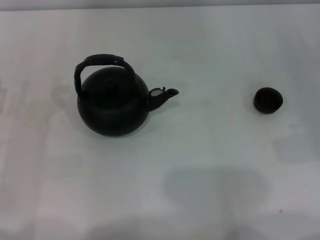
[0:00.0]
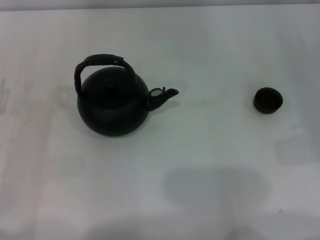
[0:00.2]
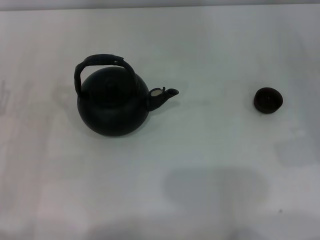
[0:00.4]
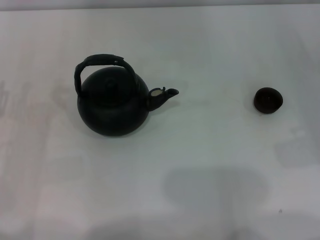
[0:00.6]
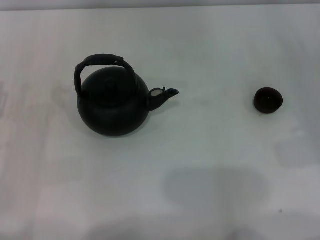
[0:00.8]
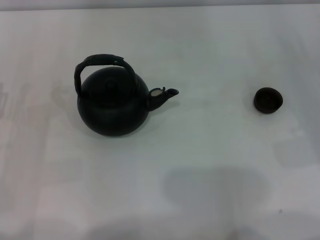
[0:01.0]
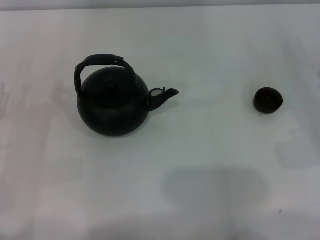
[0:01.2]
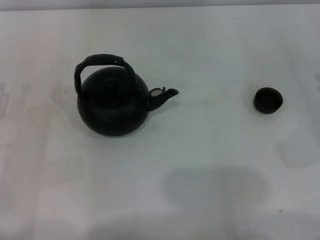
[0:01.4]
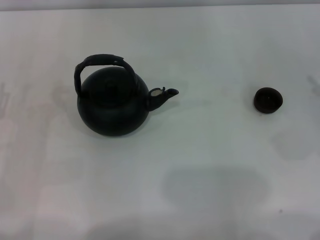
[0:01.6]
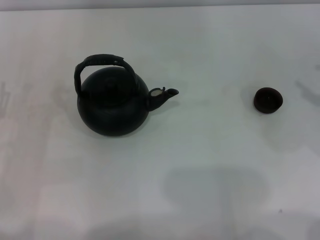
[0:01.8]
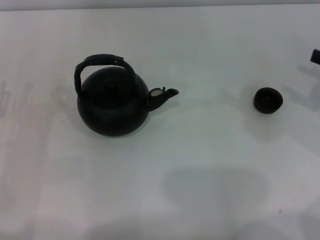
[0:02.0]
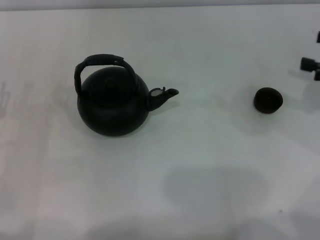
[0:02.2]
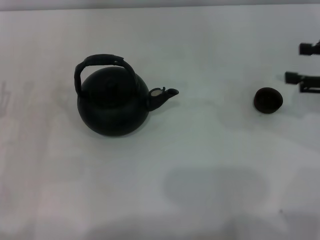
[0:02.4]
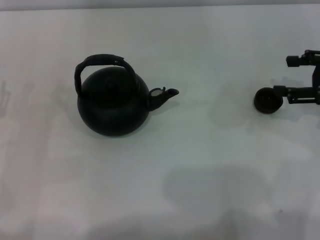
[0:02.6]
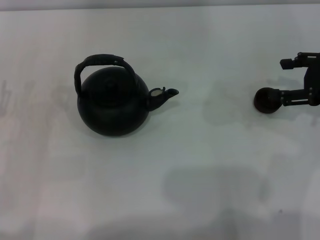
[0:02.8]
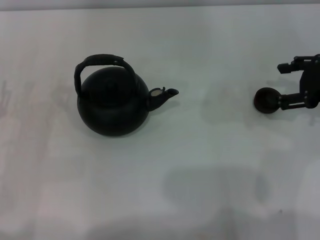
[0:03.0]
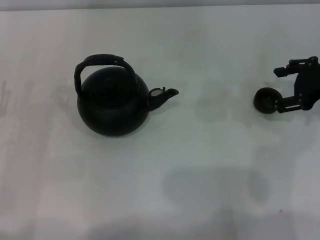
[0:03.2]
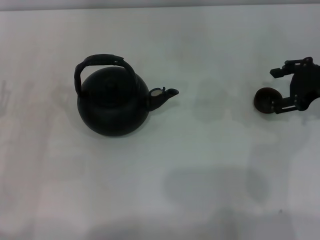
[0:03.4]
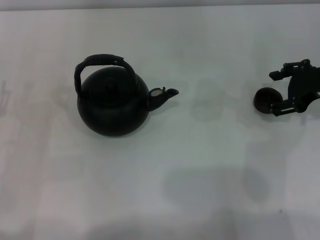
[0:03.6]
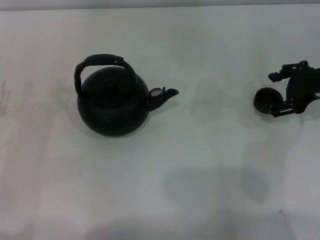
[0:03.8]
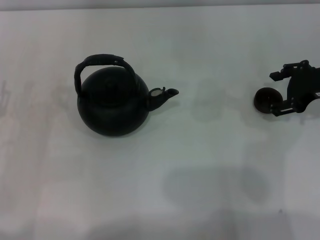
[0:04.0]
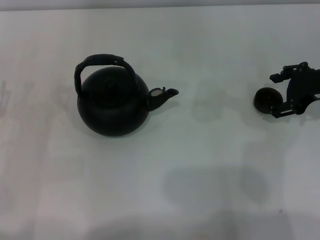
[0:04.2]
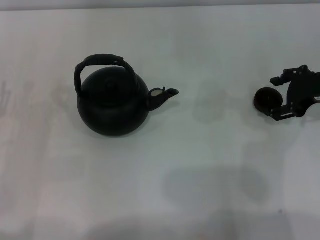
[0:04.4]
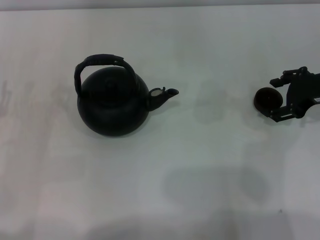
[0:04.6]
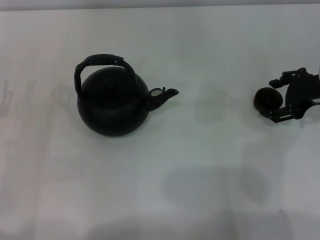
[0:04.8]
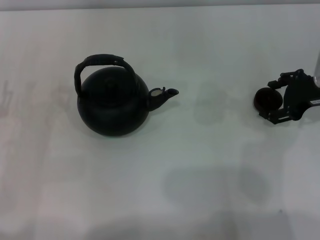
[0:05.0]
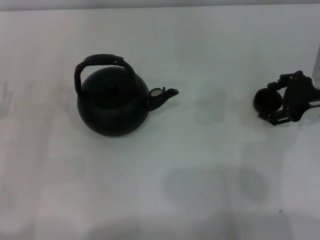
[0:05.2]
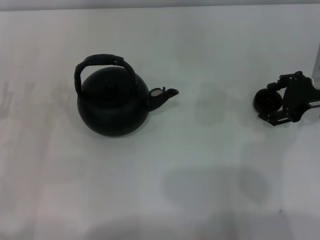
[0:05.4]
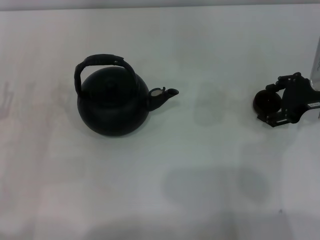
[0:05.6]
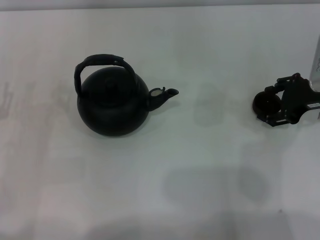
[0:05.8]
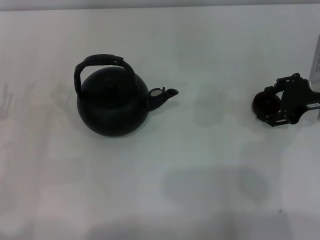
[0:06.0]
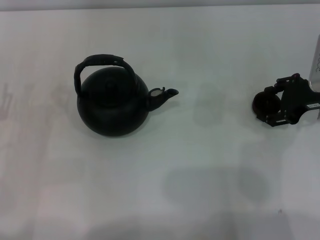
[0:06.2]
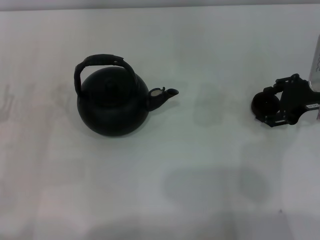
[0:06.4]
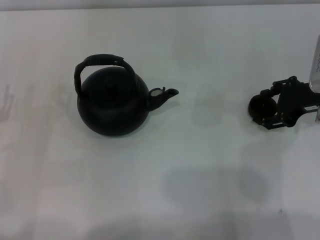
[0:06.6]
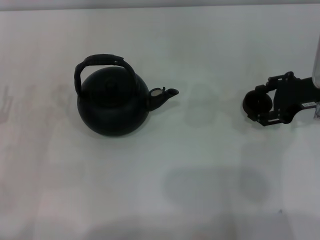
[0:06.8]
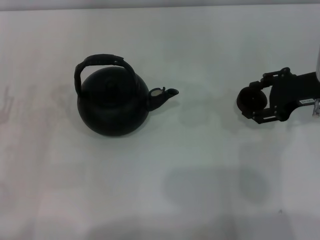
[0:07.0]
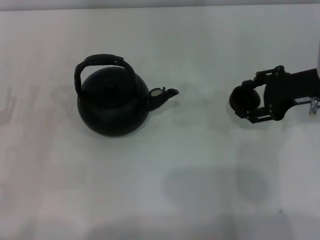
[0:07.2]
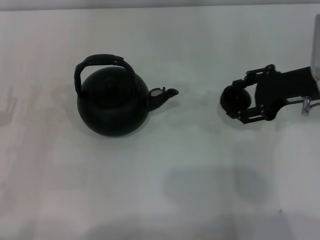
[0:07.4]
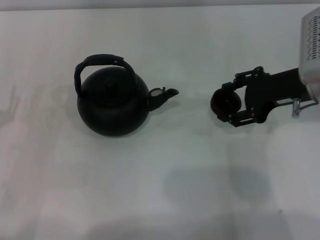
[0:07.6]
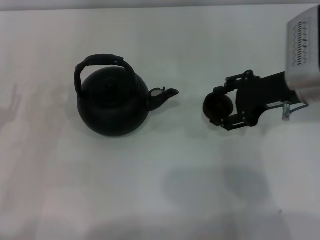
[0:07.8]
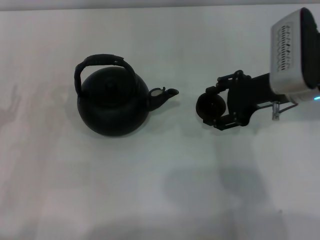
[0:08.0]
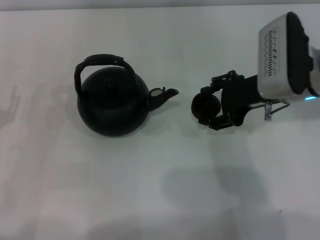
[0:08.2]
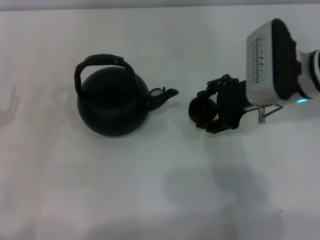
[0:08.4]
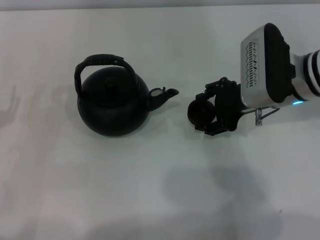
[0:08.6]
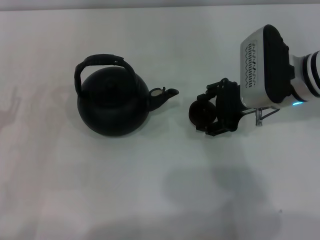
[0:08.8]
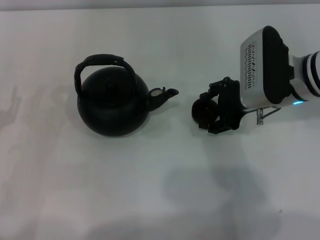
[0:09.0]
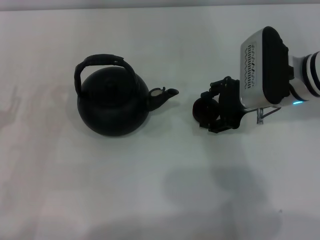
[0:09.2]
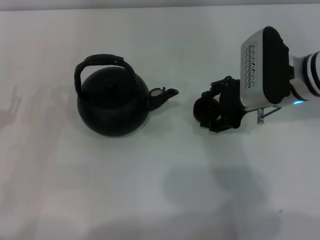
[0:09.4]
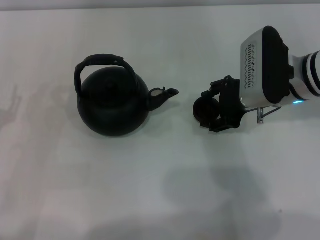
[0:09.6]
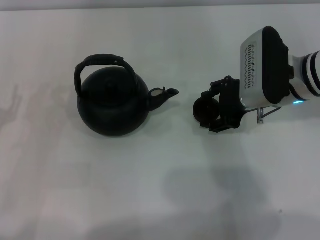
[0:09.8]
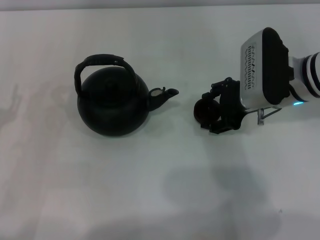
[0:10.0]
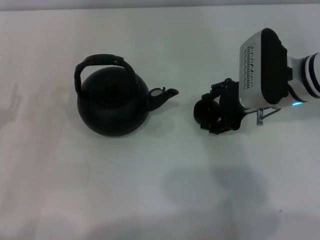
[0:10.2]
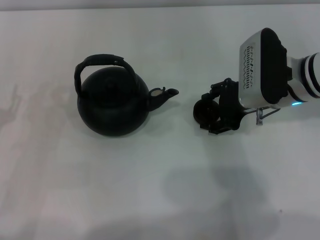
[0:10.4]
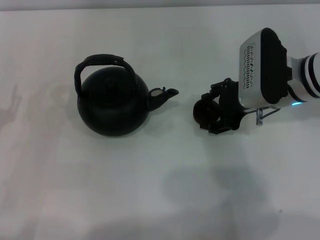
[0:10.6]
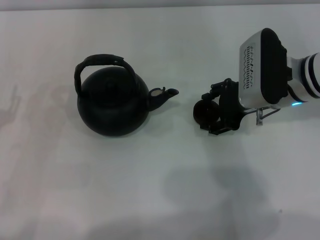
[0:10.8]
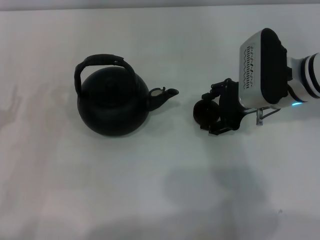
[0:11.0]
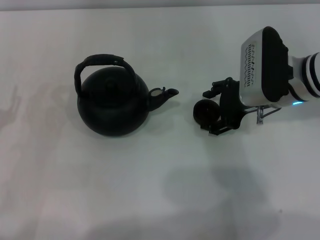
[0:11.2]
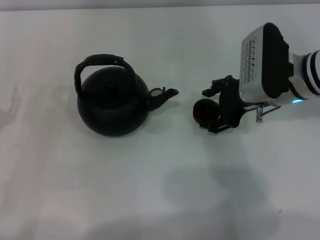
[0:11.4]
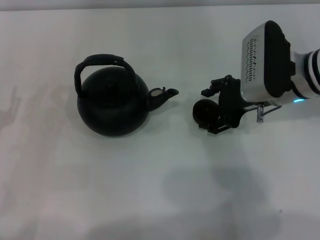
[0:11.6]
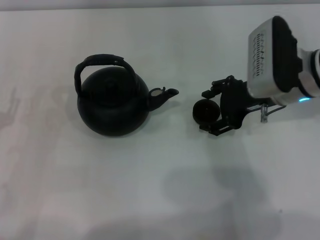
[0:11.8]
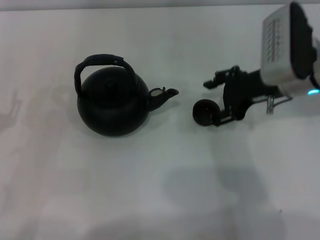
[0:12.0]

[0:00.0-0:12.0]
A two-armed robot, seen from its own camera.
Task of the whole recording: Grasp the handle of the teapot with one hand and pour tea into the teacup.
Step, 0:00.0 to 0:07.0: Pick up the teacup with the right gripper.
0:01.6 to 0:03.0: The right gripper shifts approximately 10 cm to the left and forward.
0:03.0 to 0:06.0: The grippers move only a little.
0:06.0 to 0:07.6: The right gripper ends up approximately 5 cm from where it was.
0:07.6 to 0:09.0: The right gripper goes roughly 5 cm to the left.
0:09.0 to 0:10.4: Both grippers stay about where they are.
0:10.4 to 0:12.0: The grippers stay close to where they were, moving slightly.

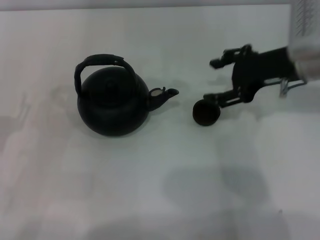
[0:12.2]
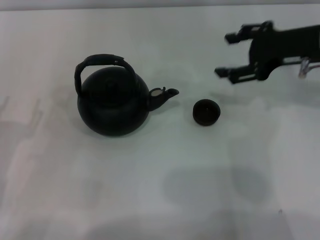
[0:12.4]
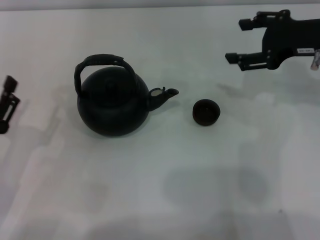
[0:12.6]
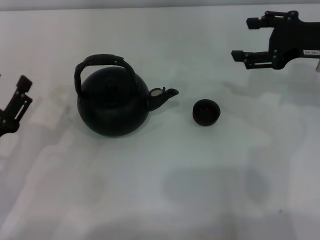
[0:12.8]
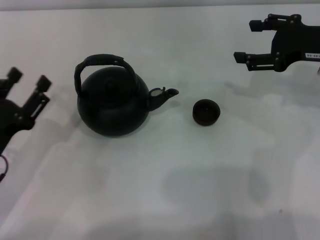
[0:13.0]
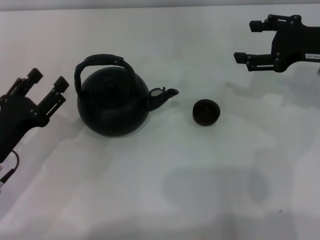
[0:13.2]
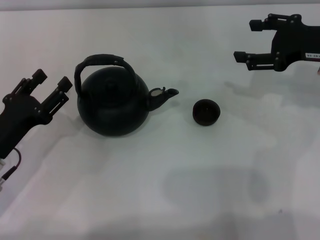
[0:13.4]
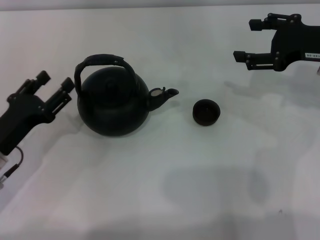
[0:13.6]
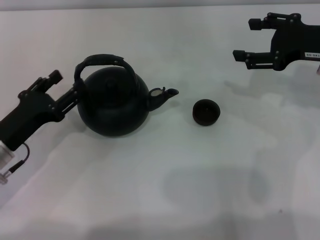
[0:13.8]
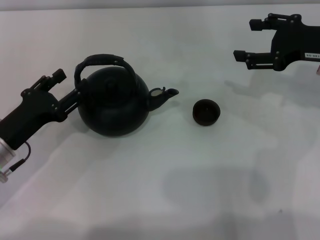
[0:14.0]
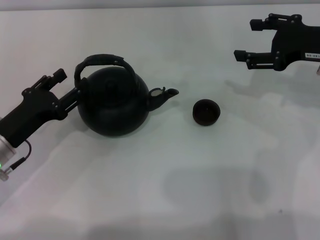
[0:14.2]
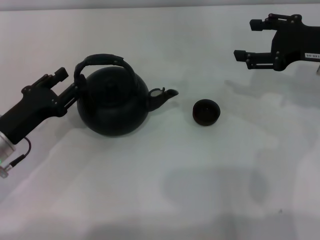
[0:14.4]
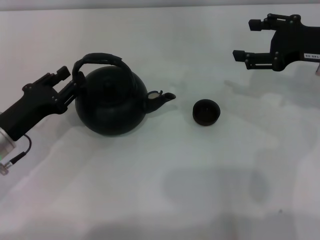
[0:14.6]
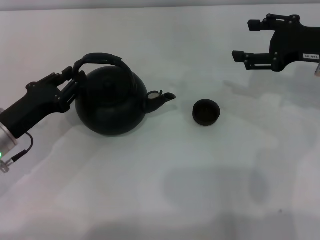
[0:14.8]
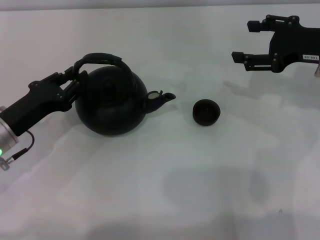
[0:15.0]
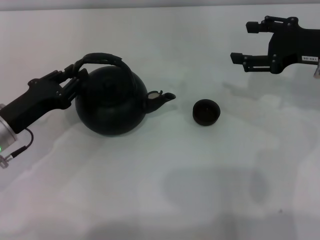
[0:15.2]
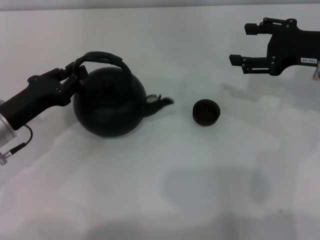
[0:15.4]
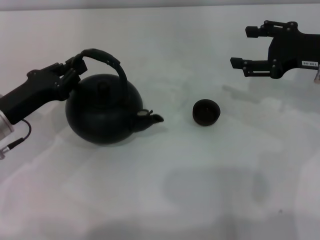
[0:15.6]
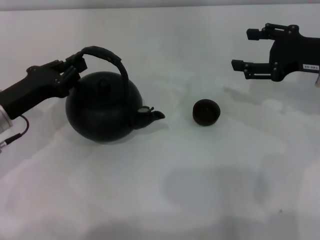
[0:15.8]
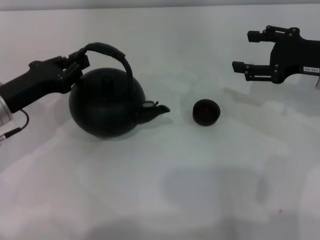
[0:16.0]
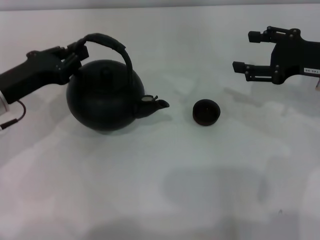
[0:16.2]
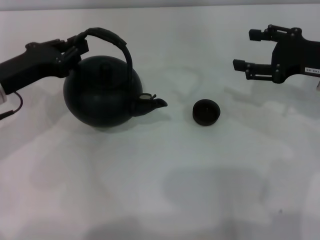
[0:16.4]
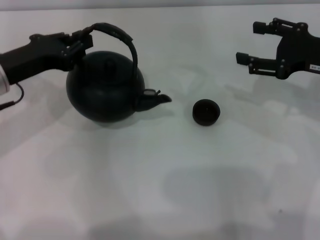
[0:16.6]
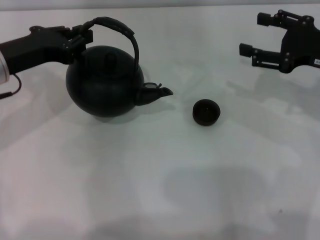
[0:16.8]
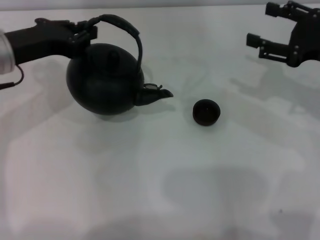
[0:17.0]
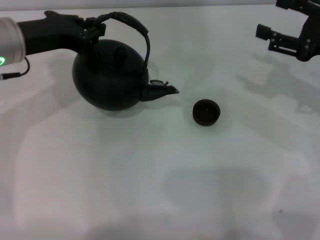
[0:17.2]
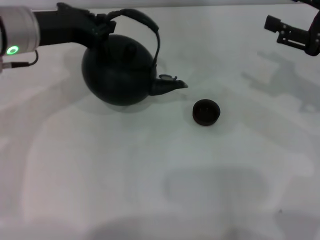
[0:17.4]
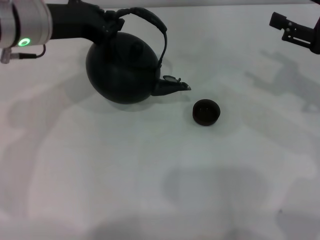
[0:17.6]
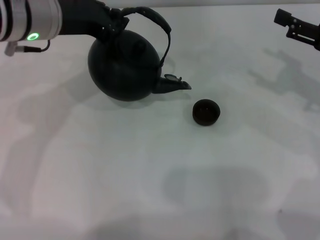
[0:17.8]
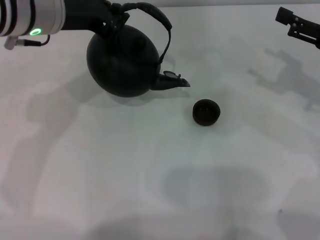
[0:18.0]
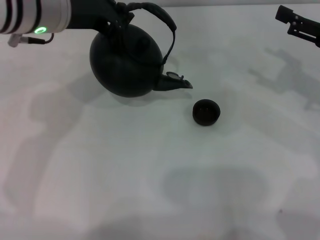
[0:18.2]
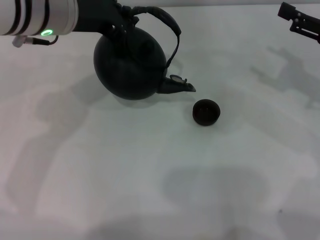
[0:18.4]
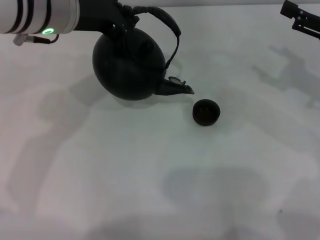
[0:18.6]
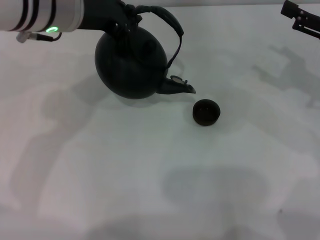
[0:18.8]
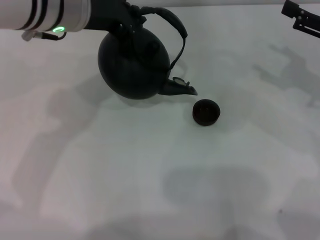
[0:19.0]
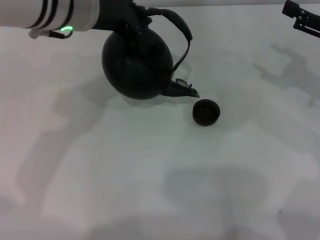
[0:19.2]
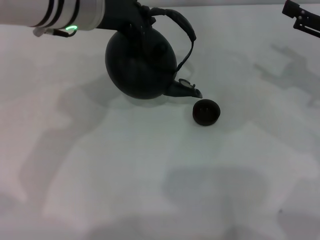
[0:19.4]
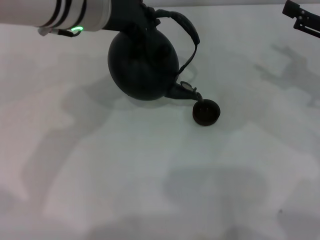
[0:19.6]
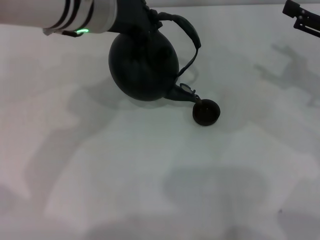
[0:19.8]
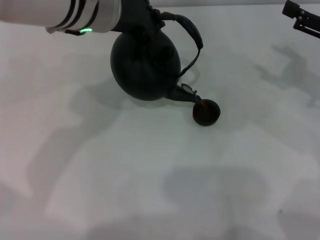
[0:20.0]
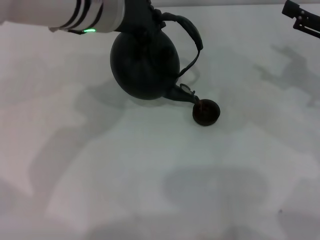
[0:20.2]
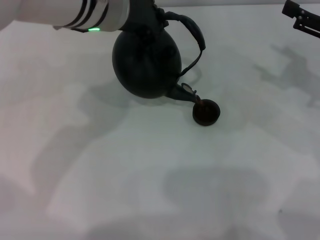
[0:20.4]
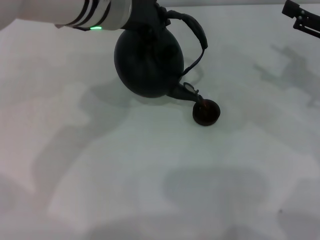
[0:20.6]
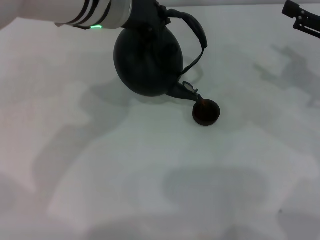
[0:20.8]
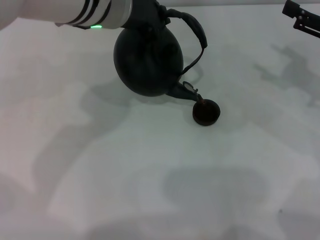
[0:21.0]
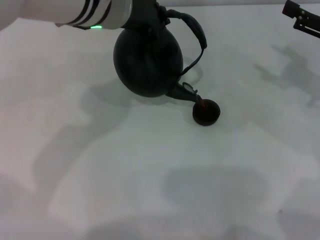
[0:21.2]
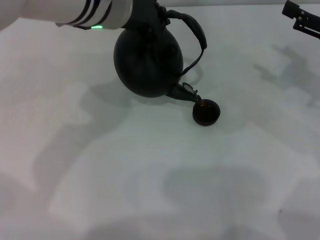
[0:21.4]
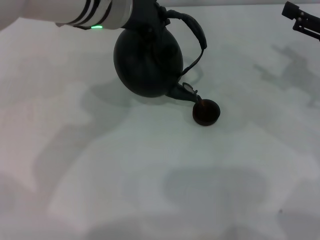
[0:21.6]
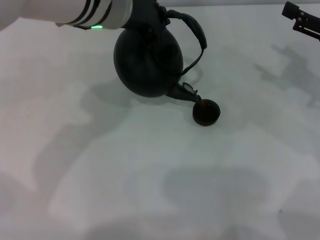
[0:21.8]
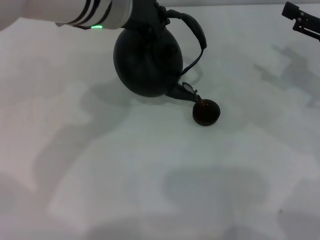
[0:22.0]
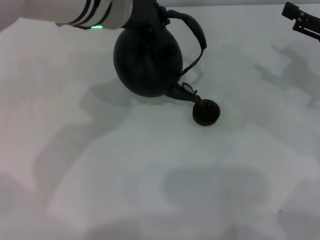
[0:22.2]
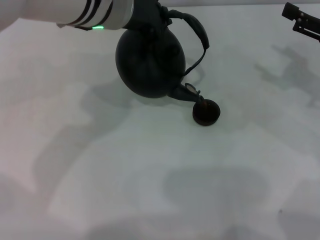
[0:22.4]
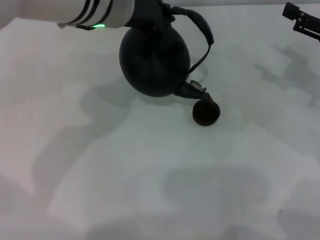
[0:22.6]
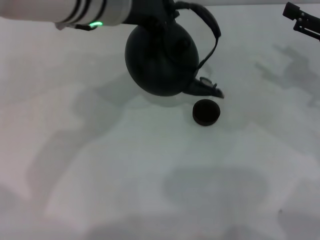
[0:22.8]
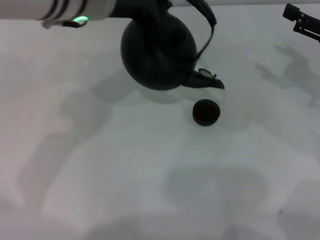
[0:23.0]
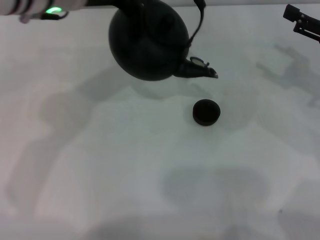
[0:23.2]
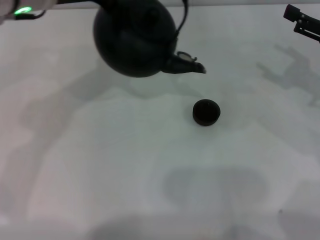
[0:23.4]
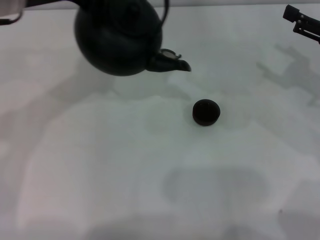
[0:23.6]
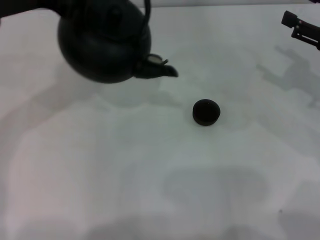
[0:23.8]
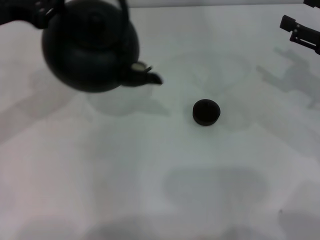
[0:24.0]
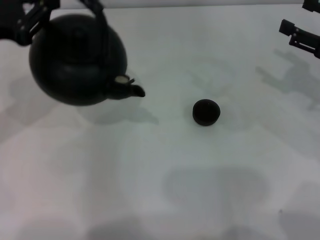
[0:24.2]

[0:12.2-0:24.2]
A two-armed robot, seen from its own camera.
Task of the whole recording: Grasp the handle of the teapot with one hand and pour tea into the teacup.
Step, 0:12.2 to 0:16.8: Pick up the teapot with the left gripper.
Step, 0:17.0 to 0:22.8: Pour tea into the teacup with the left gripper.
0:12.2 to 0:13.8: The left gripper is displaced forward by about 5 cm, while the right gripper shifts some 5 cm to the right.
0:13.8 to 0:15.2: The left gripper closes its fingers.
0:15.2 to 0:16.6: The left gripper heads upward, covering about 10 cm.
0:16.6 to 0:18.2: The left gripper goes approximately 15 cm to the right and upward.
0:18.2 to 0:19.8: The left gripper moves to the right, about 5 cm.
0:19.8 to 0:21.2: The grippers move only a little.
0:21.2 to 0:22.6: Both grippers stay about where they are.
0:22.6 to 0:24.2: The left gripper moves to the left, about 20 cm.
